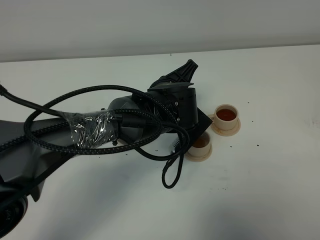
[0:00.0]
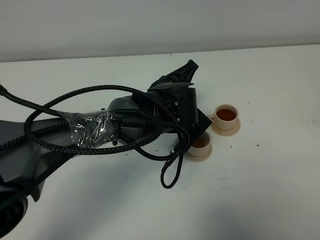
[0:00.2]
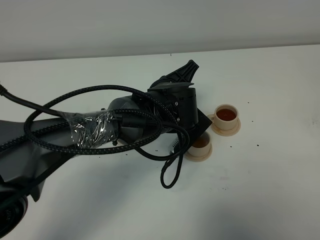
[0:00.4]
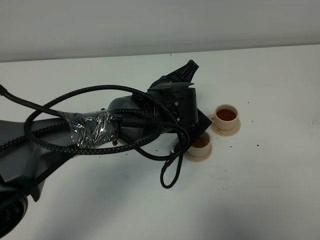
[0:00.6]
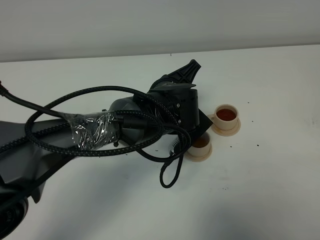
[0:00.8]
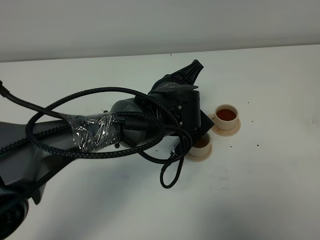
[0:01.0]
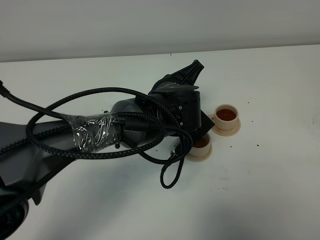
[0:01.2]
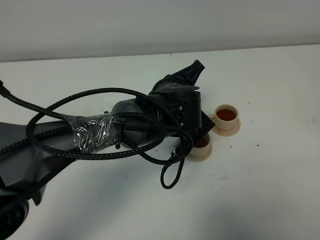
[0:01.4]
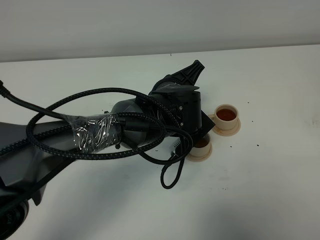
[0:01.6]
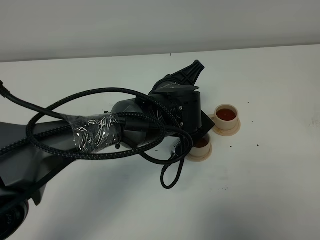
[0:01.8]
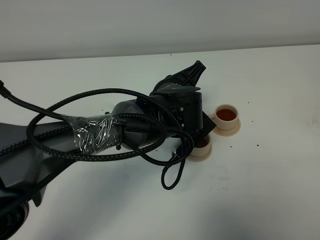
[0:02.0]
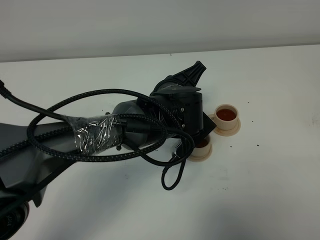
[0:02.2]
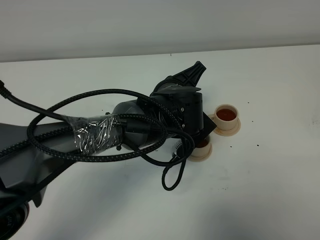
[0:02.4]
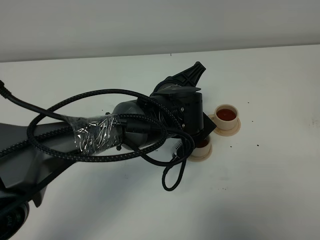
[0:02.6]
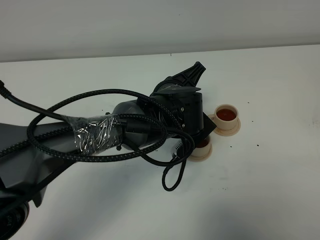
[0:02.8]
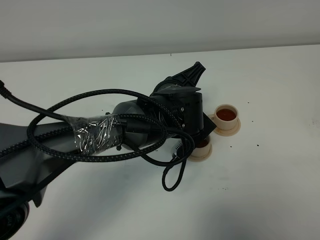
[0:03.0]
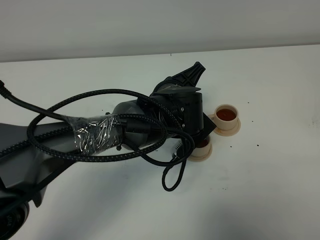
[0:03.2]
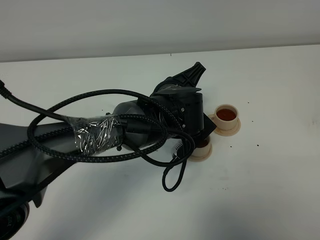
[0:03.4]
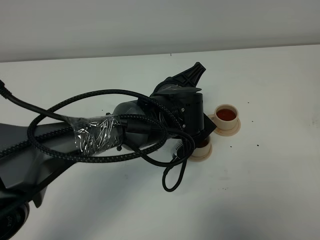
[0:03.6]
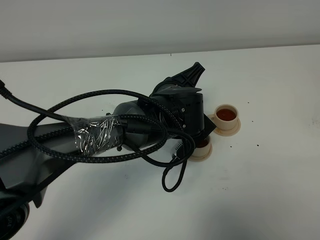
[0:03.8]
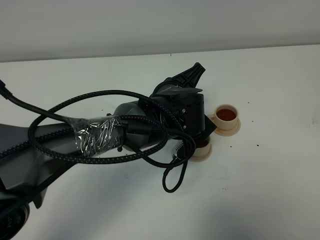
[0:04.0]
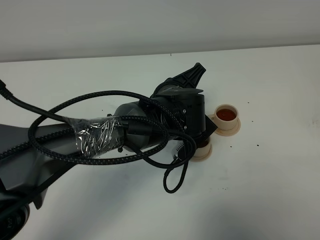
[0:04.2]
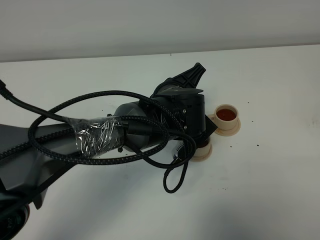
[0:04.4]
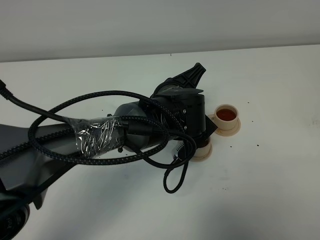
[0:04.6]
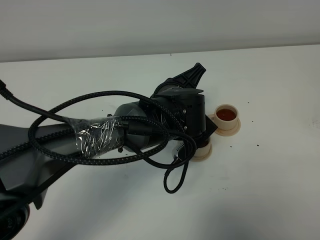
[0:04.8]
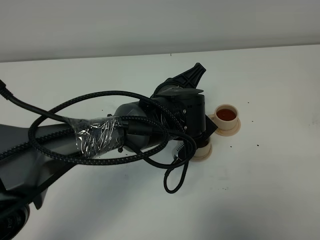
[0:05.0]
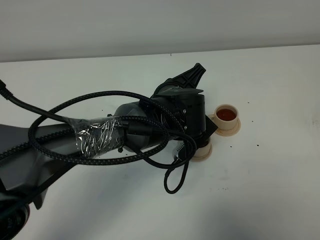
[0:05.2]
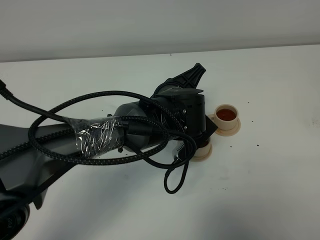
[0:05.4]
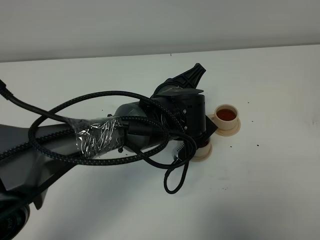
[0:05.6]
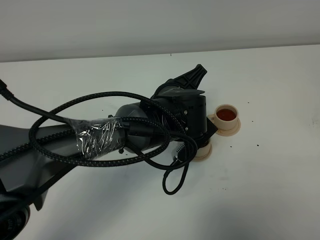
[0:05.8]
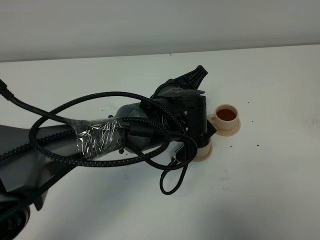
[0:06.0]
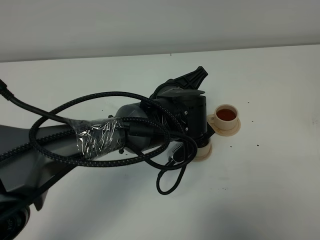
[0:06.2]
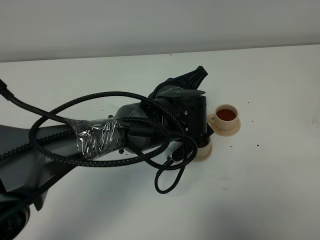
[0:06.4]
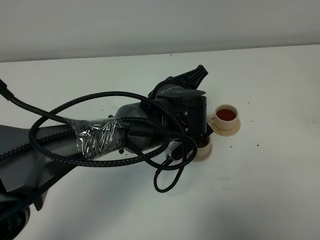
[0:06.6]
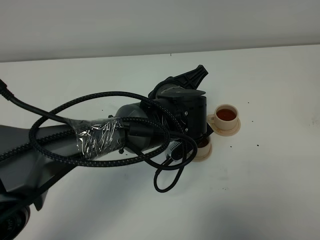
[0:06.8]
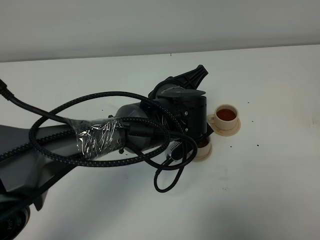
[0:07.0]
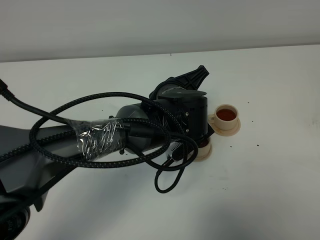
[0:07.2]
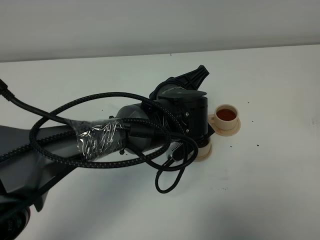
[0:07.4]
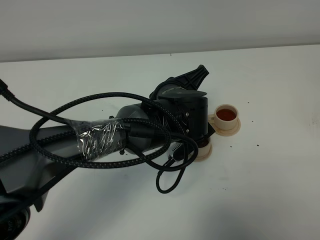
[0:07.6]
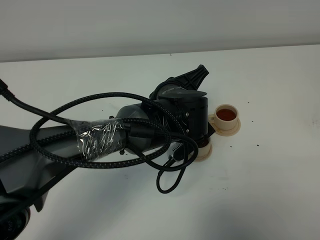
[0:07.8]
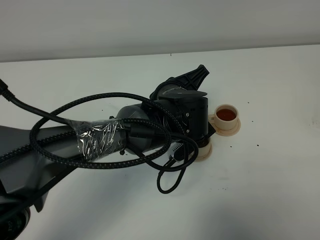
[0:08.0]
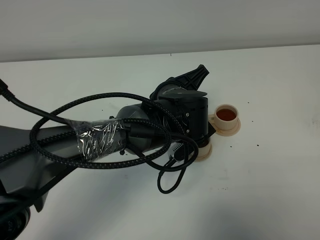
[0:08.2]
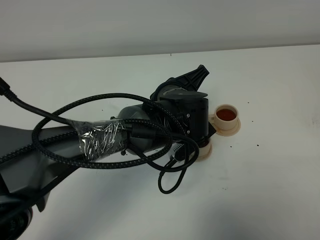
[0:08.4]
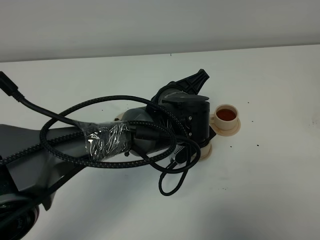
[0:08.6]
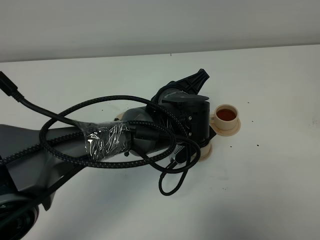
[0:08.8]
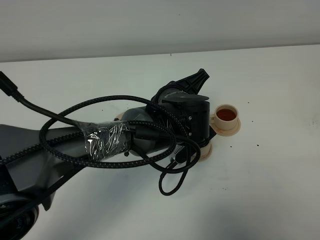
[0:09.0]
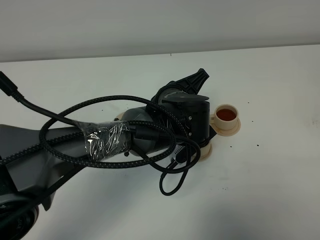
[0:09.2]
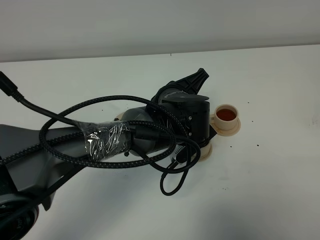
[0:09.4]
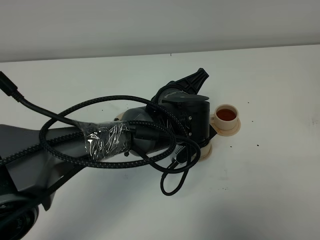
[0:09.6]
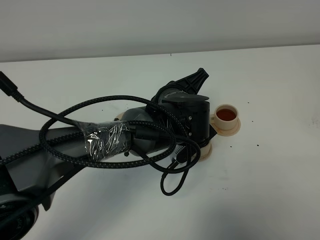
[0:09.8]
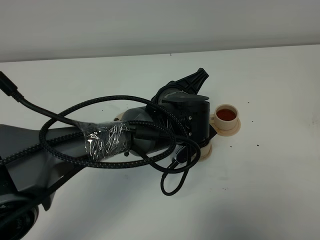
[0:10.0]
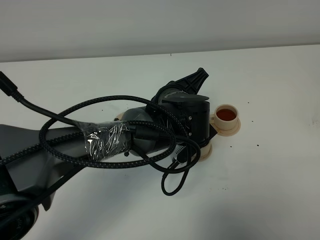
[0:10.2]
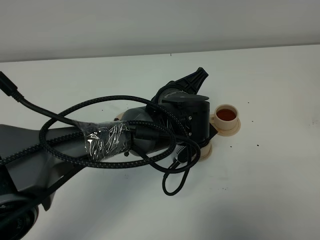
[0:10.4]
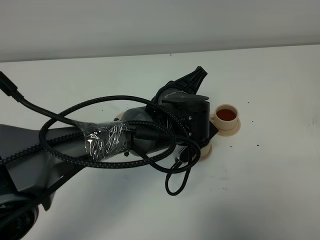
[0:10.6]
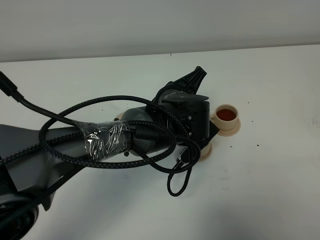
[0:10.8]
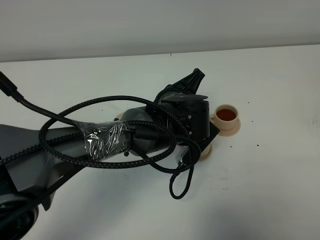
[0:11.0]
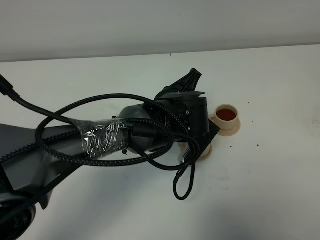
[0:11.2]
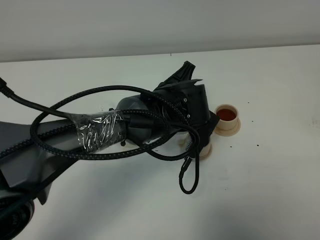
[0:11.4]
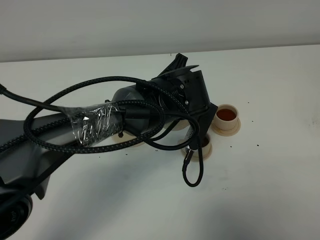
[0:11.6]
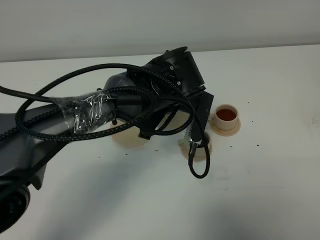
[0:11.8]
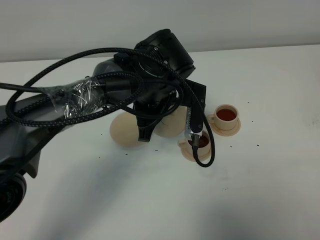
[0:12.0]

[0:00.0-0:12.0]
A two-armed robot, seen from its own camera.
Task of the whole recording: grasp the brown teapot and pour the tea into the two brown teacups one by one, put the brown teapot back in its original place.
Step, 0:00.0 to 0:11.6: Pour tea into the teacup with the left gripper.
0:00.0 to 0:04.4: Neither gripper changes place.
0:04.4 to 0:06.0: Neither gripper changes place.
0:06.0 to 0:10.4: Both grippers stay put.
0:10.4 to 0:12.0: The left gripper moves about 5 cm.

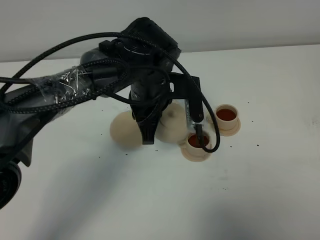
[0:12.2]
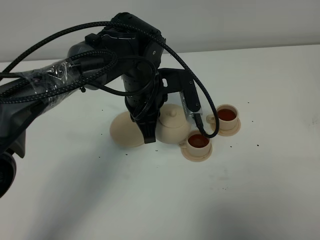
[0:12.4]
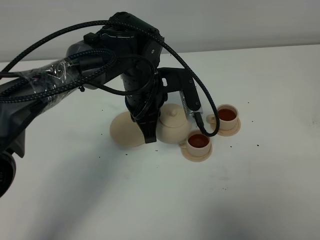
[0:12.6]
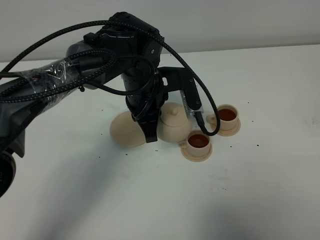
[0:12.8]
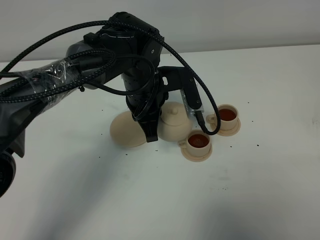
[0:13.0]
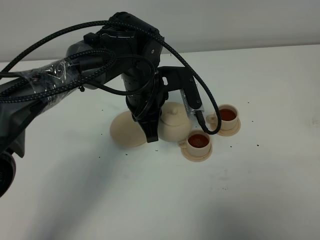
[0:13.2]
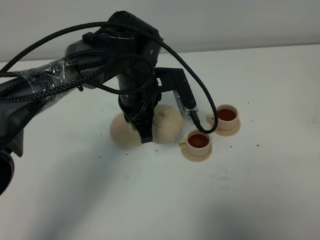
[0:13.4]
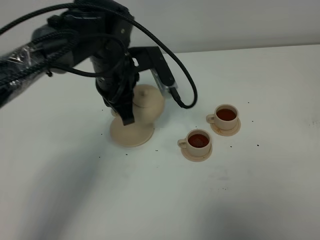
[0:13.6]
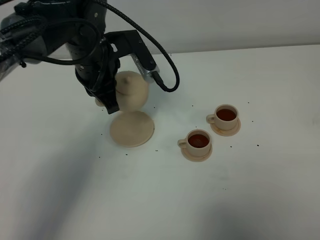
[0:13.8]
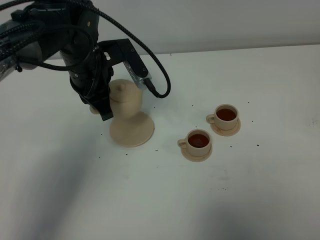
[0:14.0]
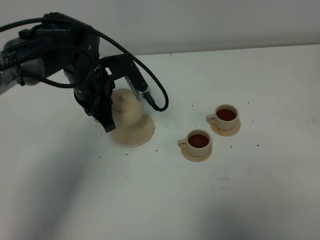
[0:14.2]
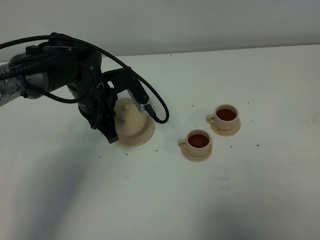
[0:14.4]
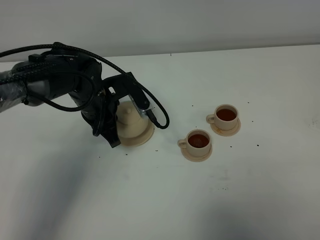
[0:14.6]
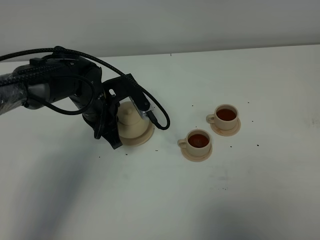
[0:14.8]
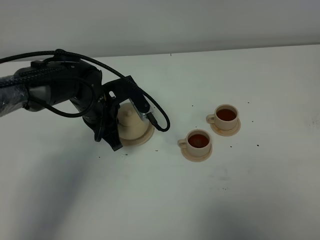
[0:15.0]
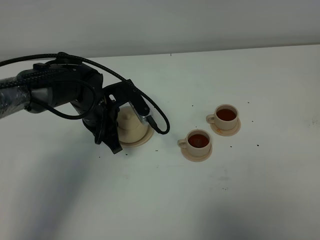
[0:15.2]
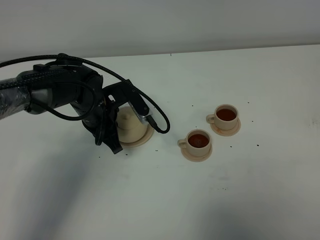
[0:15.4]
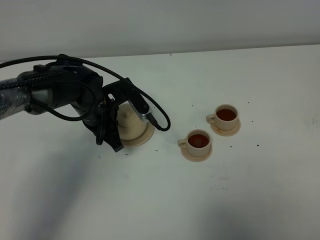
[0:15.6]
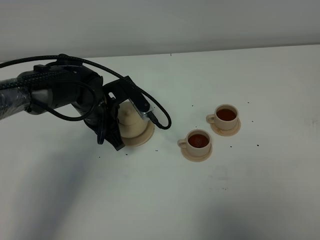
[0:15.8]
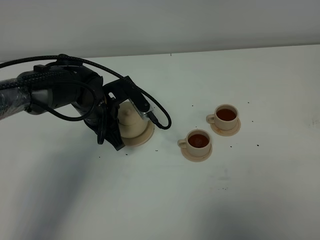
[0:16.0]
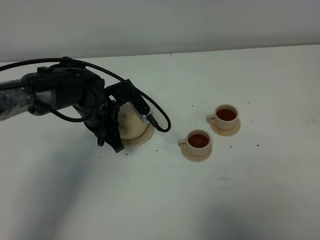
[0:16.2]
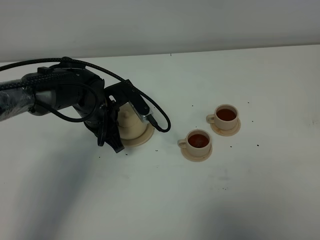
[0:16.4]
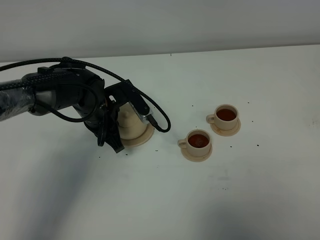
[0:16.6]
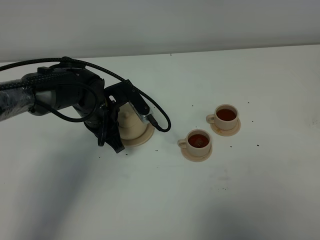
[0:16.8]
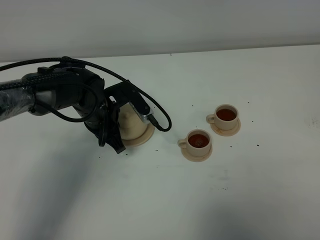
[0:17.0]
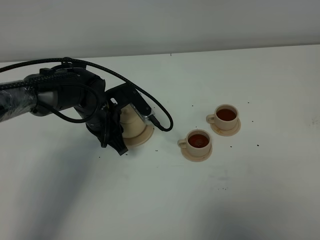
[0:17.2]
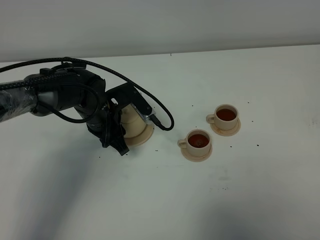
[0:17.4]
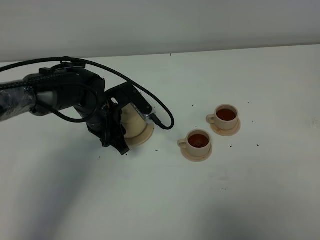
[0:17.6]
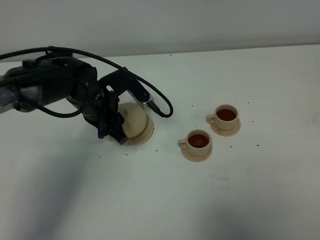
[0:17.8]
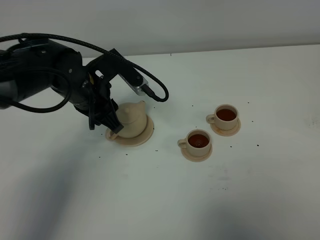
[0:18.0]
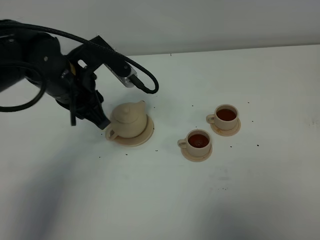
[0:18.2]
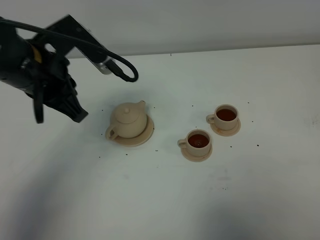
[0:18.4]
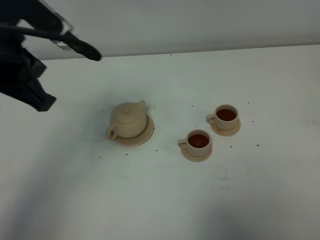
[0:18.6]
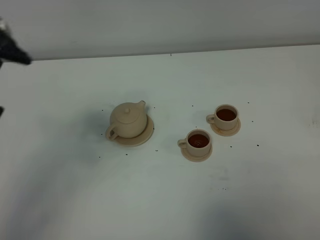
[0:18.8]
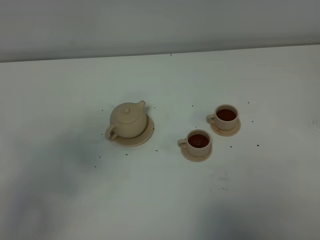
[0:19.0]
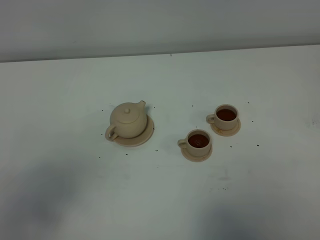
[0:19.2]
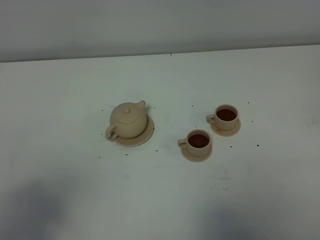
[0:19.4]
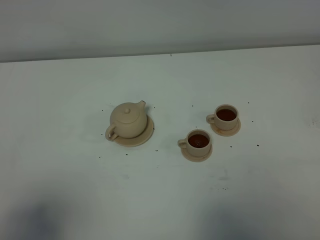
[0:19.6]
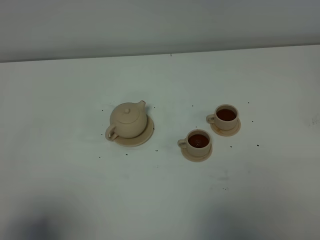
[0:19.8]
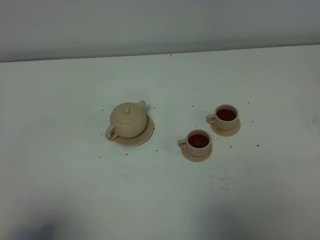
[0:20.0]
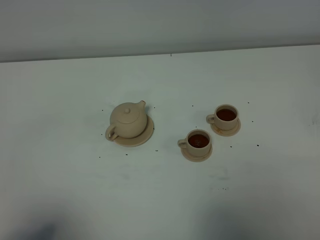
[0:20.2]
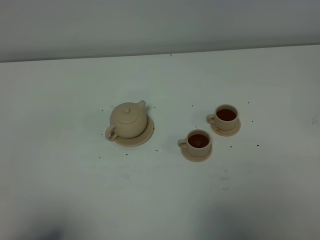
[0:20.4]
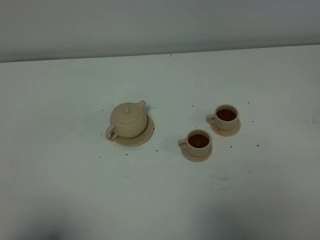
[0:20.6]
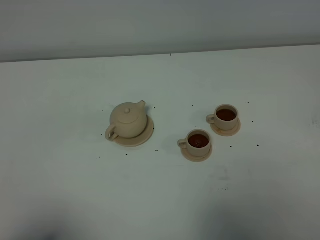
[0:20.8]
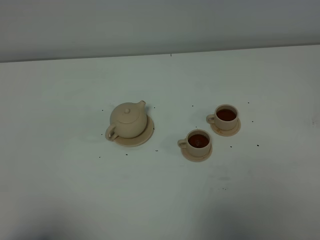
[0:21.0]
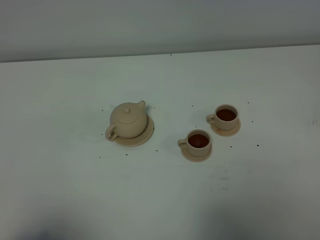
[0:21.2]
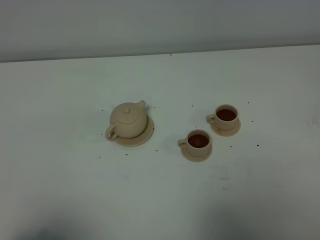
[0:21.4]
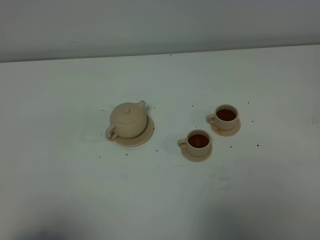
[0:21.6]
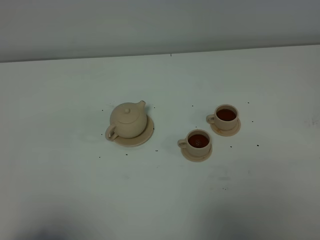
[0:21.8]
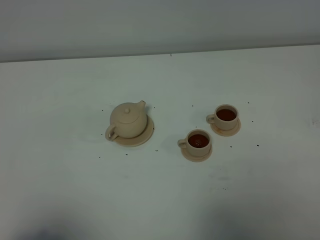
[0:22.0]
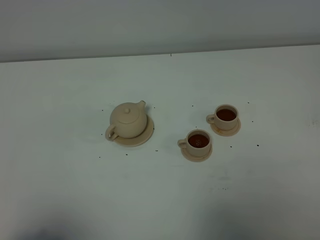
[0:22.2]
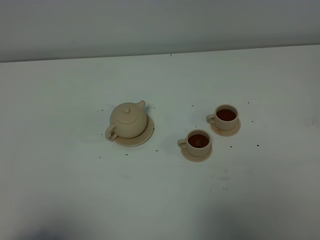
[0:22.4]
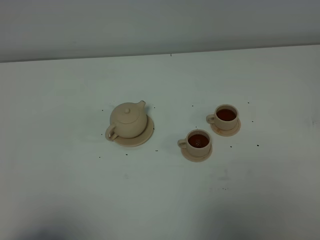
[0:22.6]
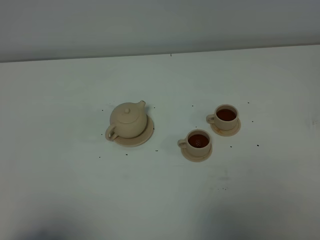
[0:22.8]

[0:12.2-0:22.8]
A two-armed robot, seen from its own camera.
Task of the whole recording: grasp the brown teapot and pour the tea into the two brown teacups one by one, put the brown teapot back in its original place.
0:12.2 to 0:13.8: The left gripper shifts some 10 cm to the left.
0:13.8 to 0:15.2: The left gripper goes approximately 10 cm downward.
0:15.2 to 0:16.8: Neither gripper changes place.
0:16.8 to 0:18.2: The left gripper travels upward by roughly 15 cm, and opens up.
0:18.2 to 0:19.8: The left gripper travels backward by roughly 30 cm, and closes up.
0:21.2 to 0:22.8: The two grippers keep their place.
